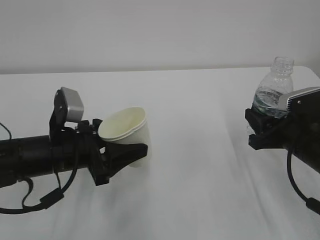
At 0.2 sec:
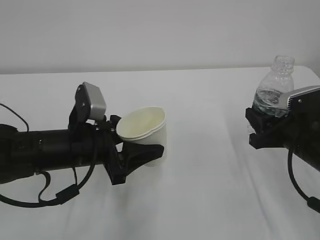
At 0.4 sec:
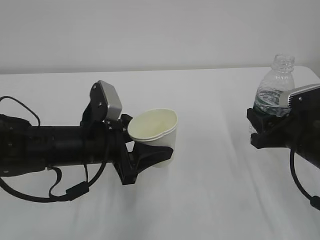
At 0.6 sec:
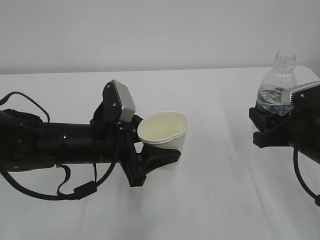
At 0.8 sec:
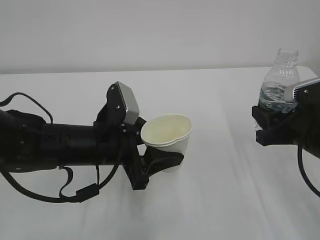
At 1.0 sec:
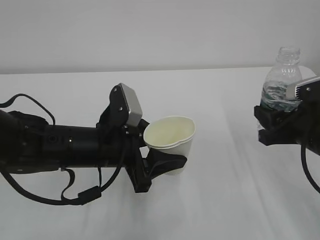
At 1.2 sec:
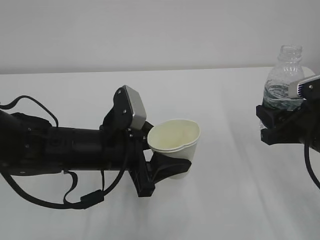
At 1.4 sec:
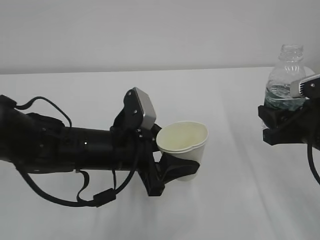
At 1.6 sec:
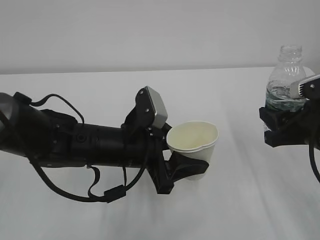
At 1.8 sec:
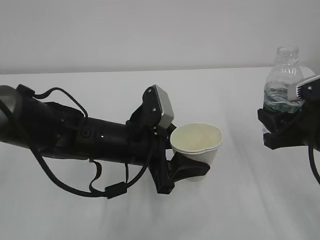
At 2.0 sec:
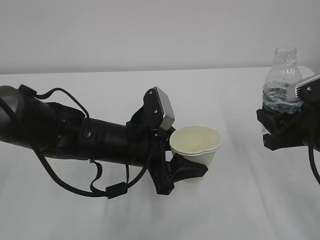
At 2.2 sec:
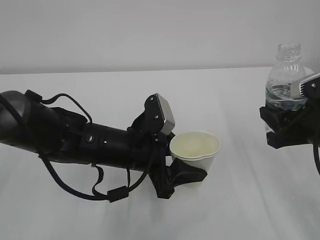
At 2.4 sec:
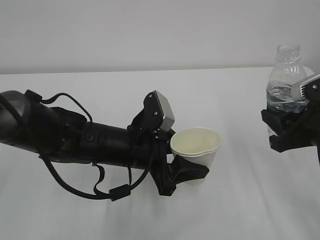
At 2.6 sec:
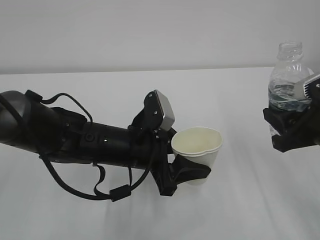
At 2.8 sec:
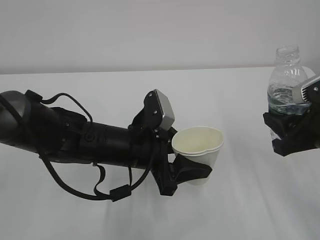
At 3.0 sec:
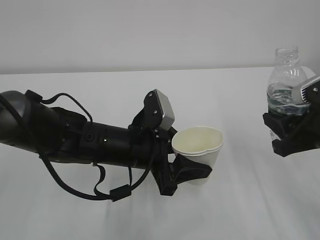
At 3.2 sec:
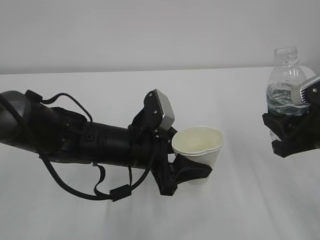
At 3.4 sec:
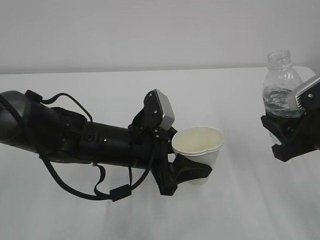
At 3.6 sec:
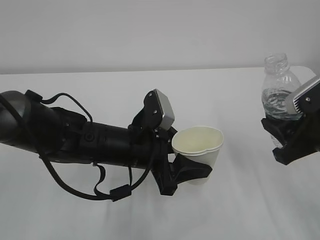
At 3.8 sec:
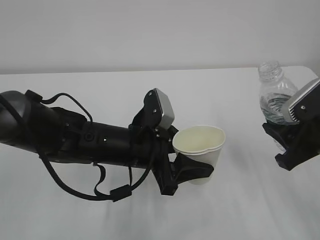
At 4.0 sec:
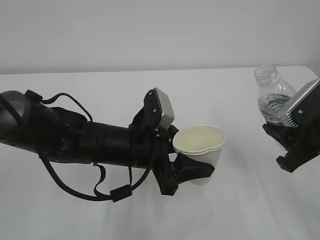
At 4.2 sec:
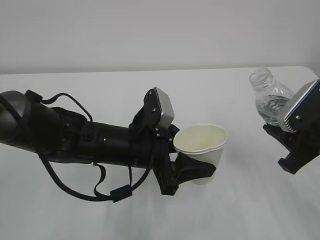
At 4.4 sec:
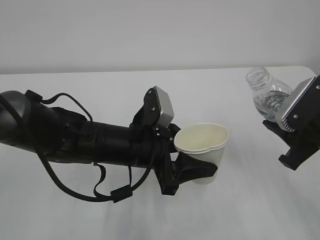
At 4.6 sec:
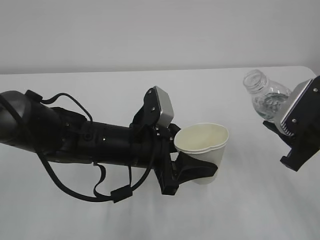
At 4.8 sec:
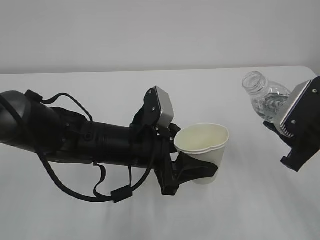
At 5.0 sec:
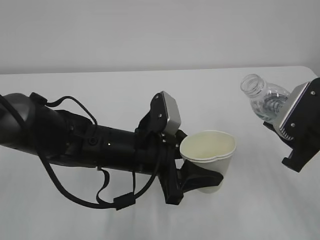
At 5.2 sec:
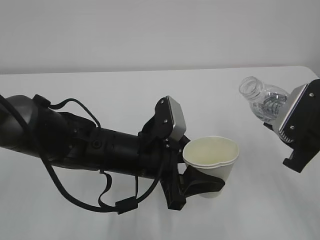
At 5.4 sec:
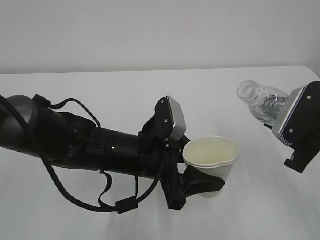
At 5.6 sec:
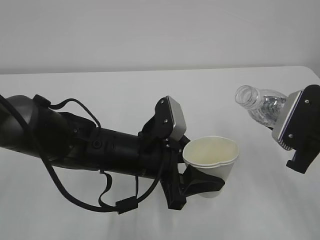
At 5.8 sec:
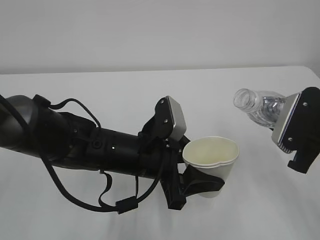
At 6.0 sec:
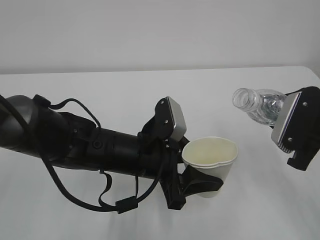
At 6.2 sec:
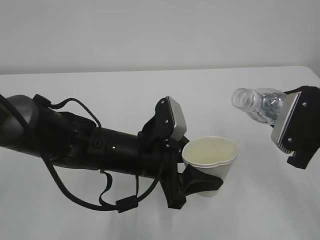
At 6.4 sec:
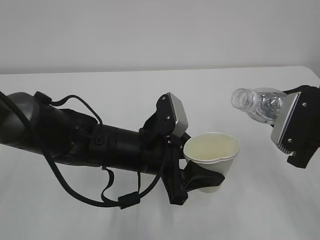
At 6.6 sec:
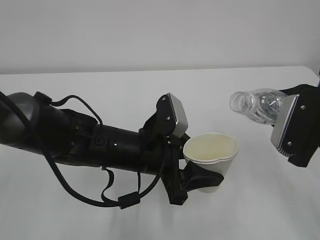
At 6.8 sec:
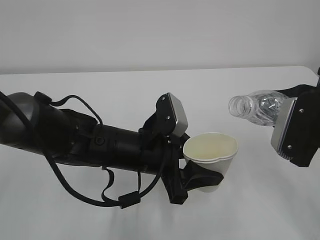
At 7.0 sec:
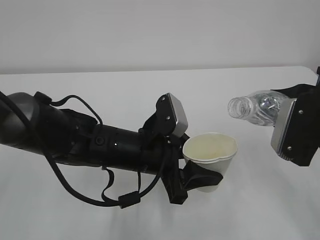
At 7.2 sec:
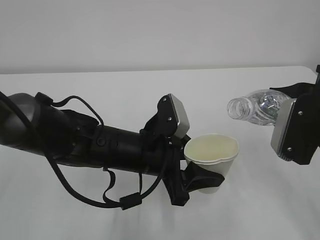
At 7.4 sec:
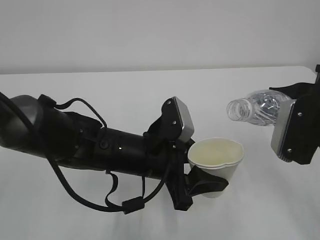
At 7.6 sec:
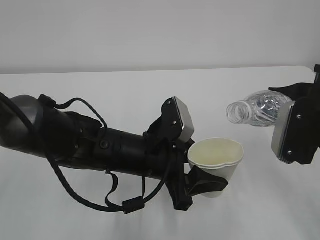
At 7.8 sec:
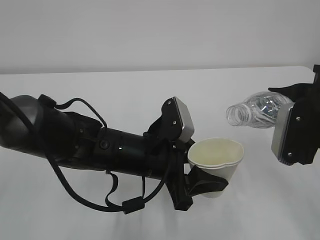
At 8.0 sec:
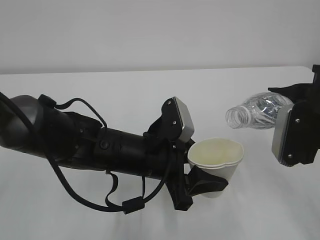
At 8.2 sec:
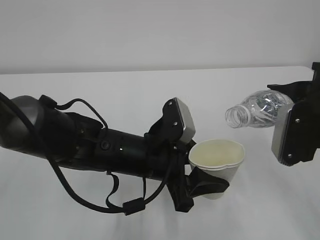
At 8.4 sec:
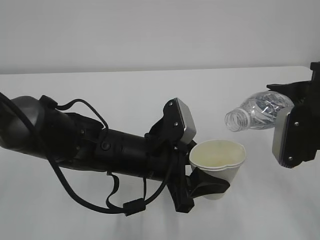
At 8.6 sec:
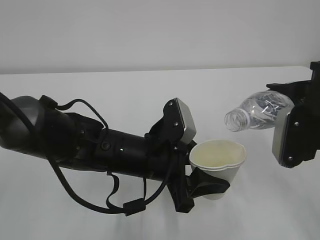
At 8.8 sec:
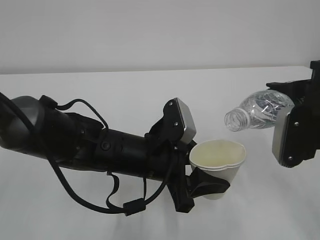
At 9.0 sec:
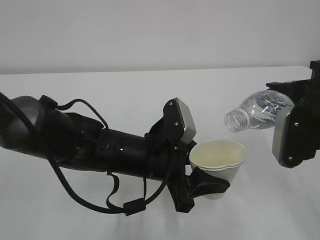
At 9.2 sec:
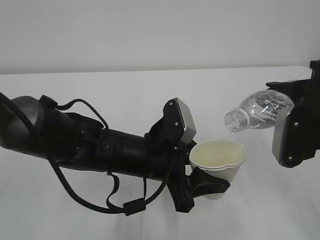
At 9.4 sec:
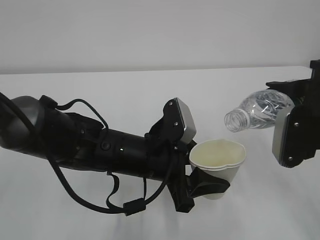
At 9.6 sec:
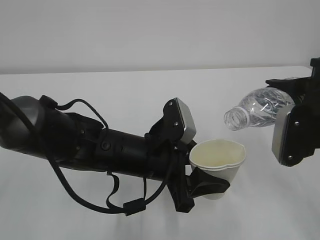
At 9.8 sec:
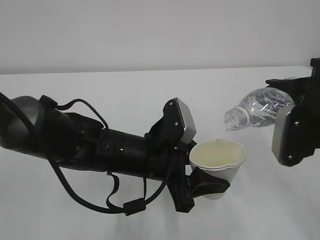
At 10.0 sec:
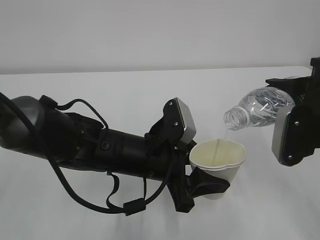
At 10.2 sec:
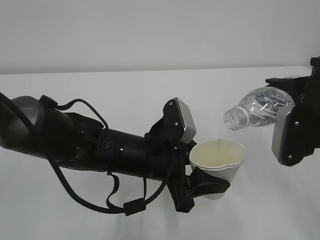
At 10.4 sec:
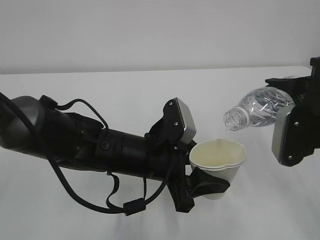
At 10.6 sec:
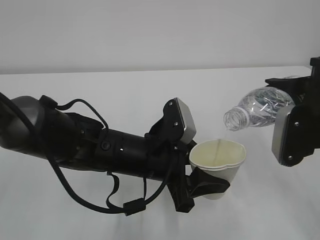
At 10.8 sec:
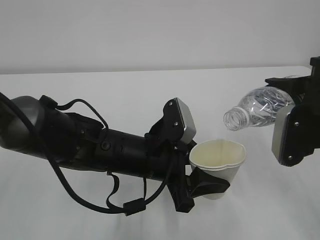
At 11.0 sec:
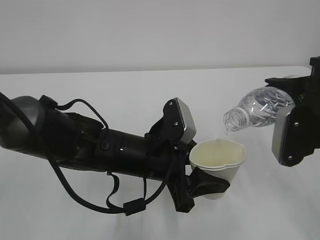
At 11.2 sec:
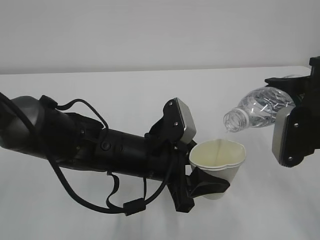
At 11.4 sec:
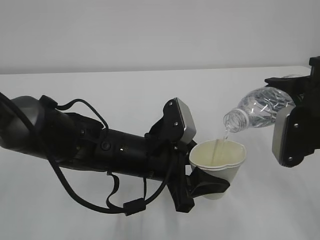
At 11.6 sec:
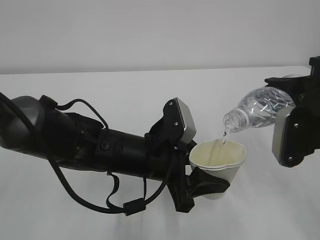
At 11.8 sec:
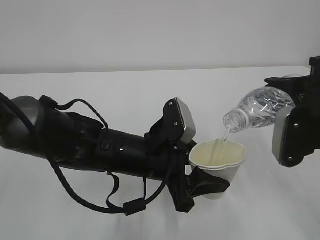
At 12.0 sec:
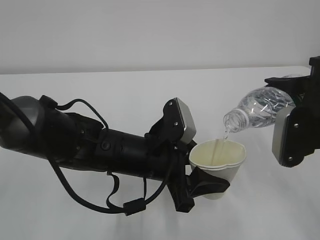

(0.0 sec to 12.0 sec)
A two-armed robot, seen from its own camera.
0.0 sec - 1.6 sec: The left gripper goes some 10 cm to the right, while the right gripper changes place by about 5 cm.
1.6 sec - 3.0 sec: There are only small adjustments of the grippers.
6.0 sec - 7.6 sec: The grippers move only a little.
7.6 sec - 9.0 sec: The grippers make only small movements.
9.0 sec - 12.0 sec: Neither gripper changes place.

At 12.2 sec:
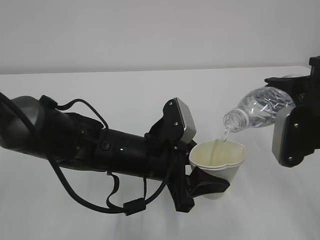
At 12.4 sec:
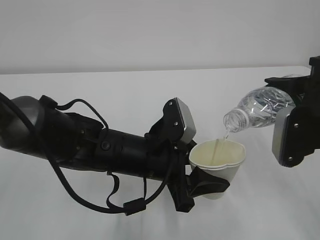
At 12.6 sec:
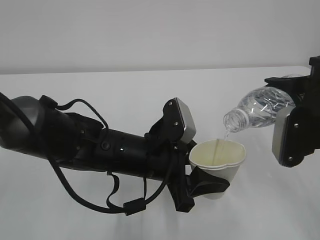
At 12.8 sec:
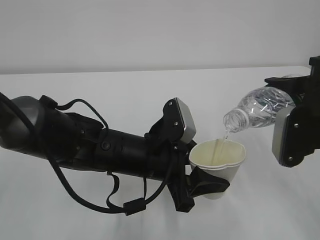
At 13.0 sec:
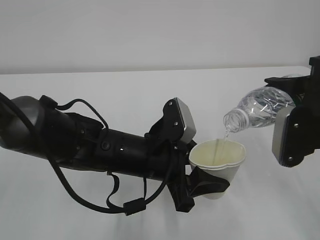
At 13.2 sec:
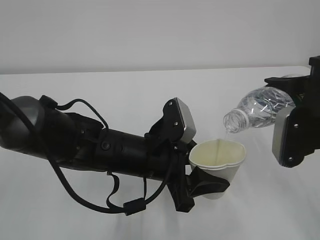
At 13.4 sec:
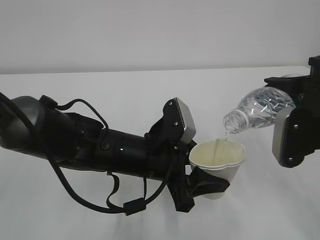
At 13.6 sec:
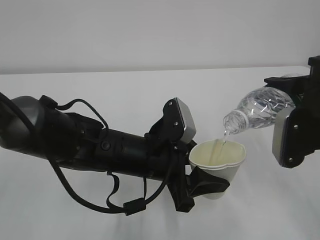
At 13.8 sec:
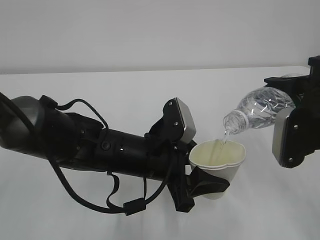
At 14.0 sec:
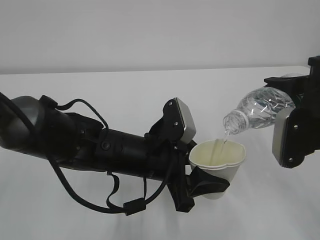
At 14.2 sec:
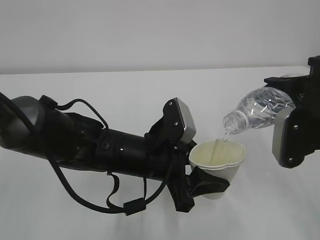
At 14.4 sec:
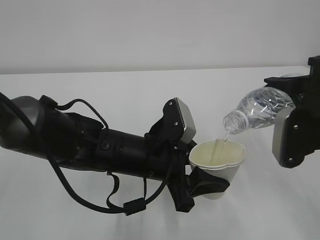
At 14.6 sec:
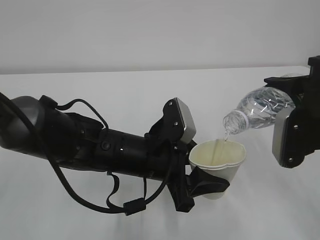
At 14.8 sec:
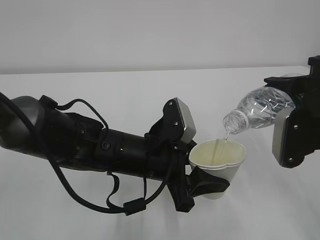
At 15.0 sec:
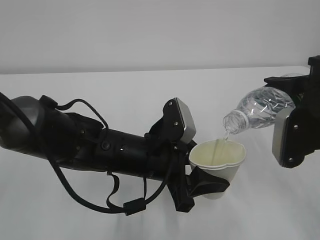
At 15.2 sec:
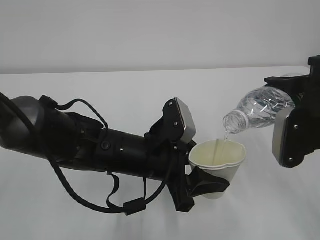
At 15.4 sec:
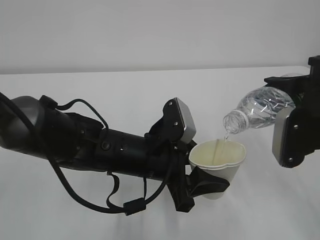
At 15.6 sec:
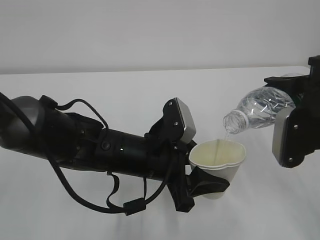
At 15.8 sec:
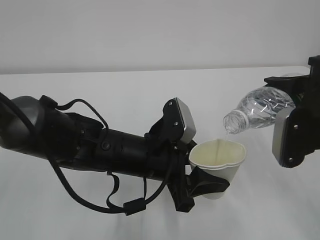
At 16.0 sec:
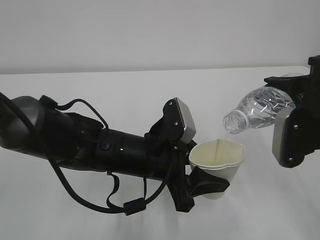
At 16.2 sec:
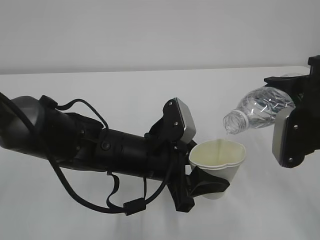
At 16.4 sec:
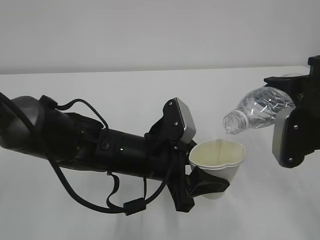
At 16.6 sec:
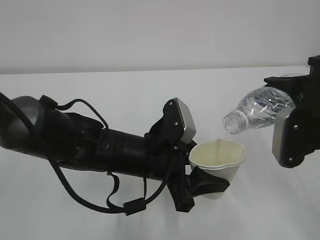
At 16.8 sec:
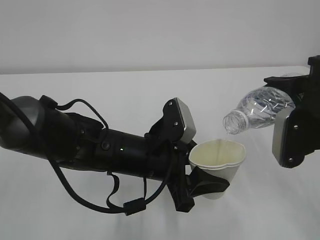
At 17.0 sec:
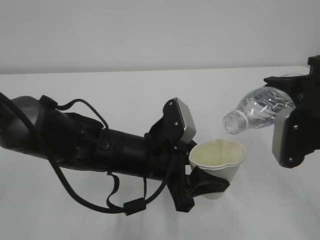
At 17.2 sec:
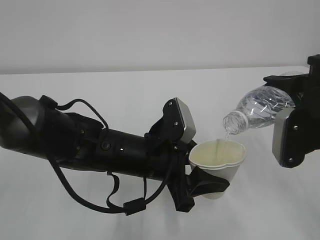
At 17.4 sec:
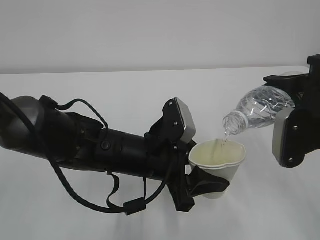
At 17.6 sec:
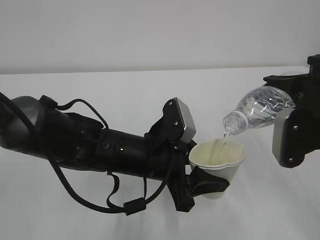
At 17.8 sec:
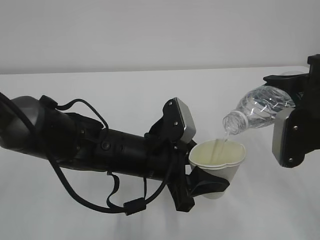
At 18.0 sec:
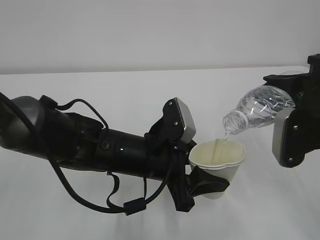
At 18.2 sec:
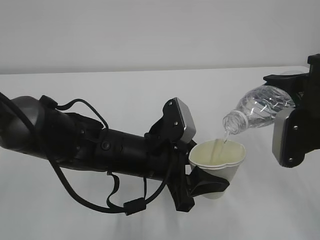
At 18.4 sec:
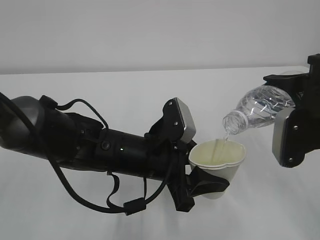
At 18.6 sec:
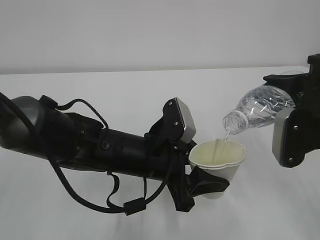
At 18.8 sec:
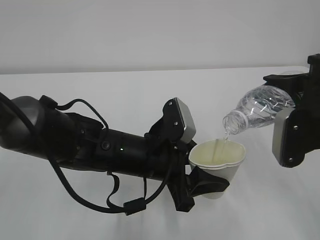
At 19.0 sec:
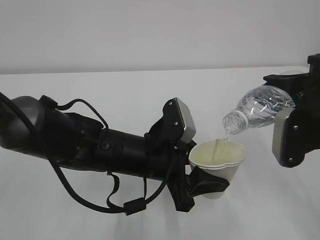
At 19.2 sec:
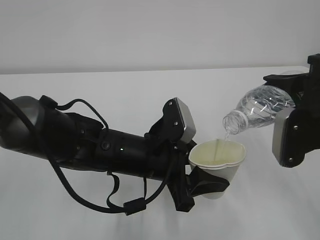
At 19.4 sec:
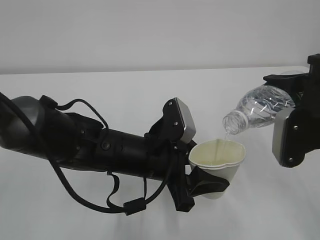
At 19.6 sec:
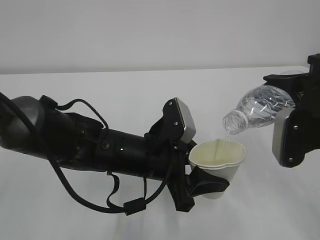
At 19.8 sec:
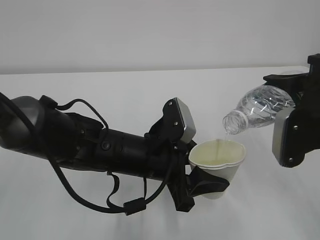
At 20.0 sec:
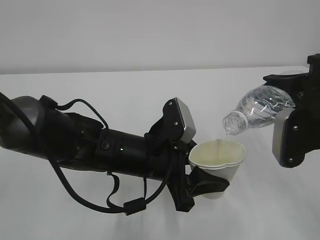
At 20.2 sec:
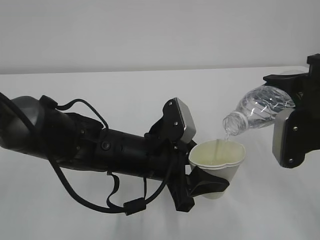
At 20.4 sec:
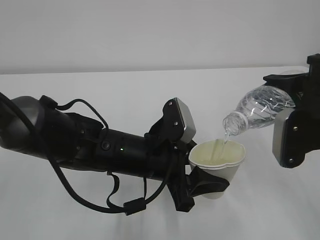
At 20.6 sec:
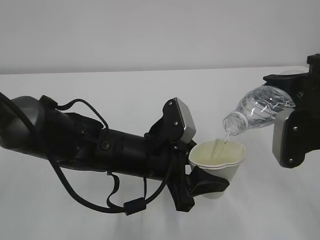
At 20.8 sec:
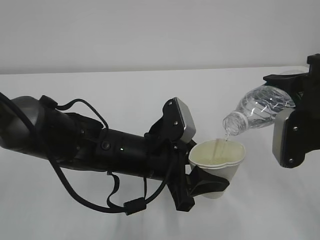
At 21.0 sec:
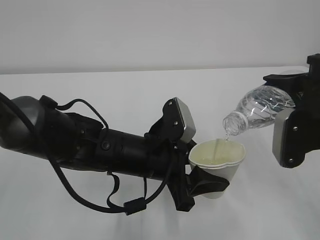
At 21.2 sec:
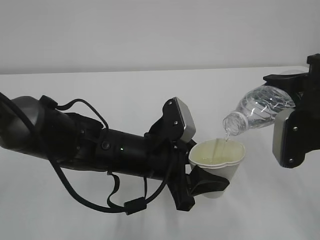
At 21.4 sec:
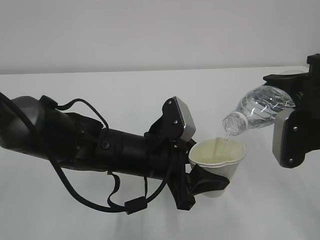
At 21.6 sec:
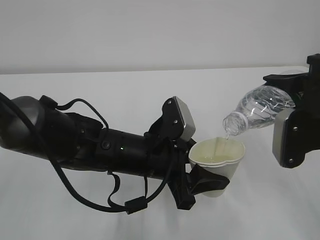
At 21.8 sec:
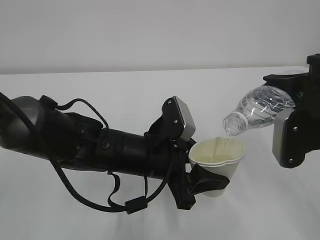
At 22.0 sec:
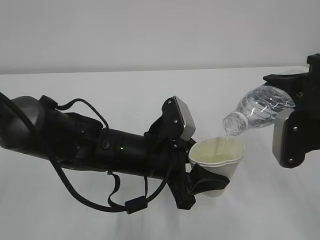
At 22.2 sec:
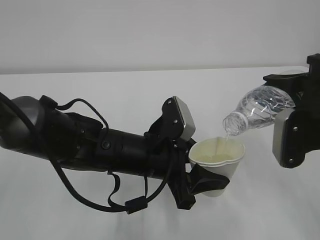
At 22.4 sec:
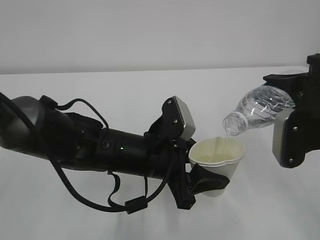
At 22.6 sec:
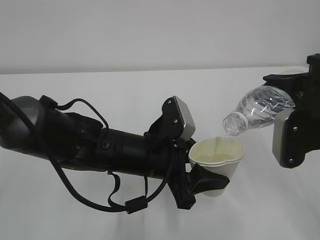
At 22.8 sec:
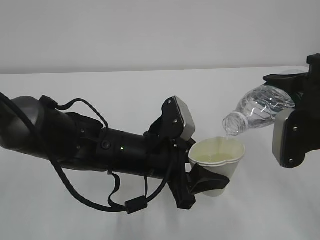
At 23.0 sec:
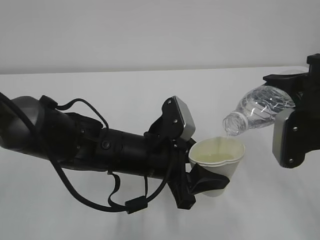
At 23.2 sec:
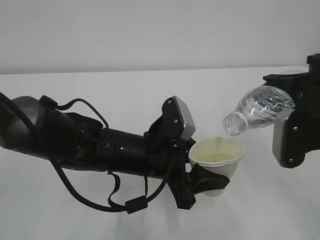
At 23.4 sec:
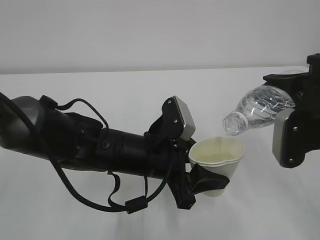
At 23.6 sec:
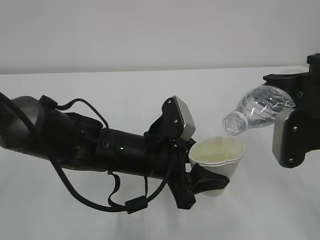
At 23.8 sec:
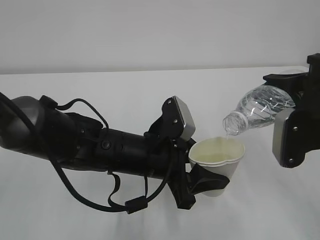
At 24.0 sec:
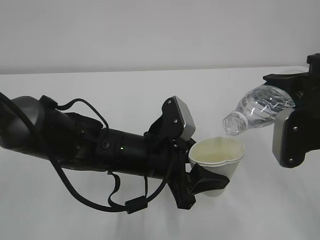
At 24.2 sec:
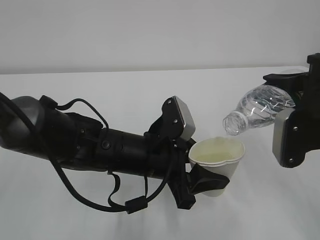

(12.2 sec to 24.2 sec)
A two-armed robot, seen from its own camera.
12.2 sec - 24.2 sec: Neither gripper changes place.
